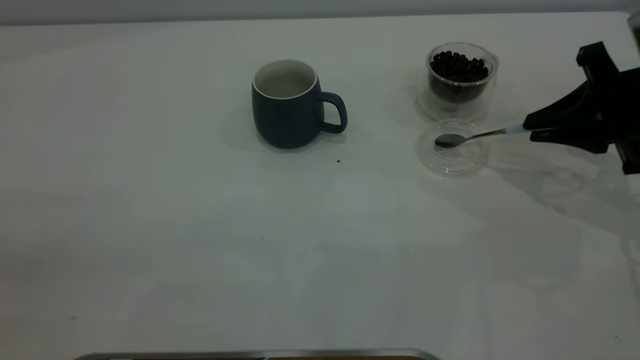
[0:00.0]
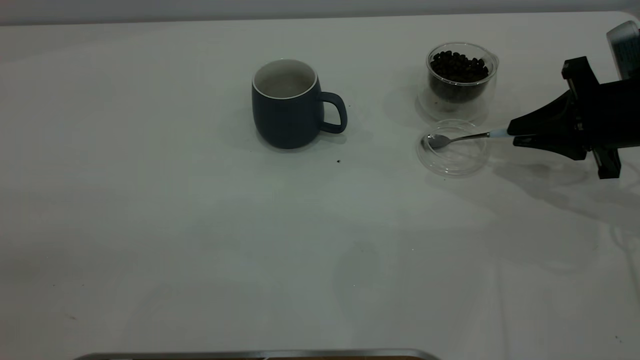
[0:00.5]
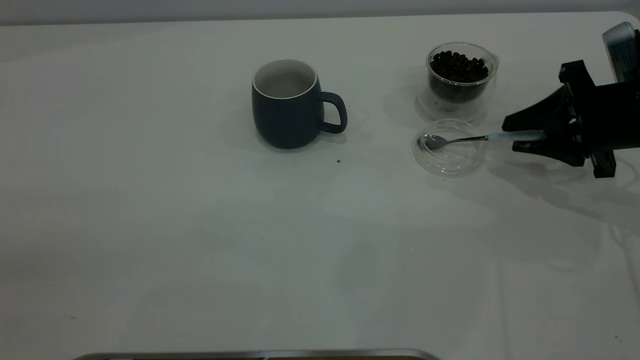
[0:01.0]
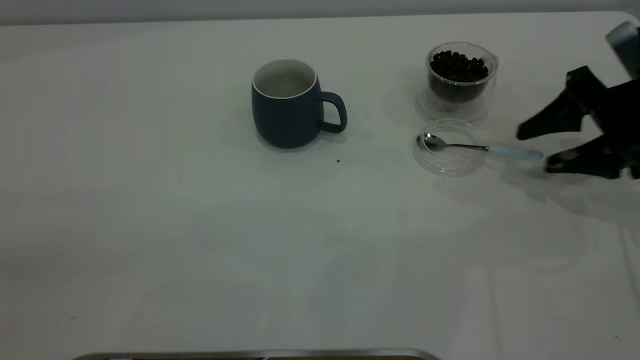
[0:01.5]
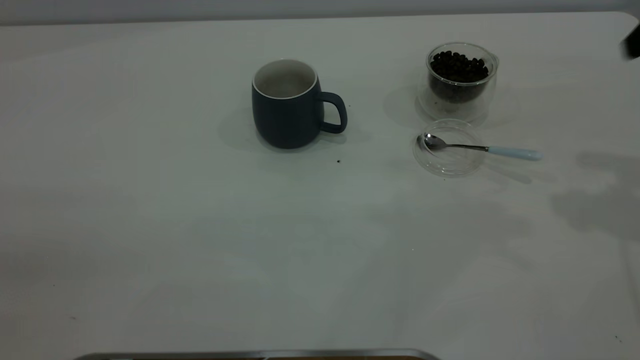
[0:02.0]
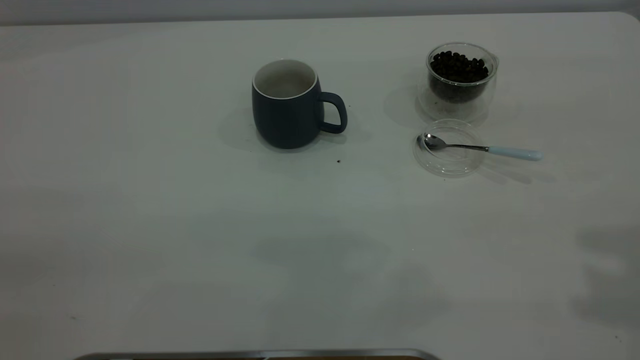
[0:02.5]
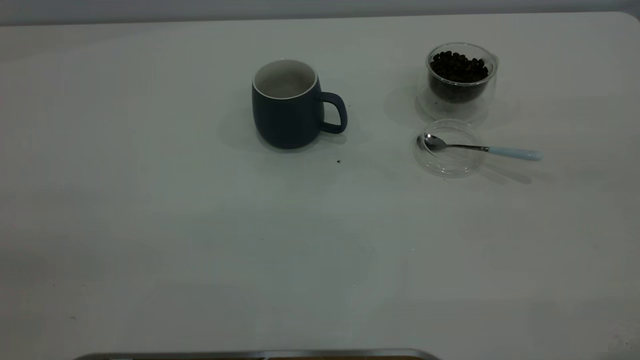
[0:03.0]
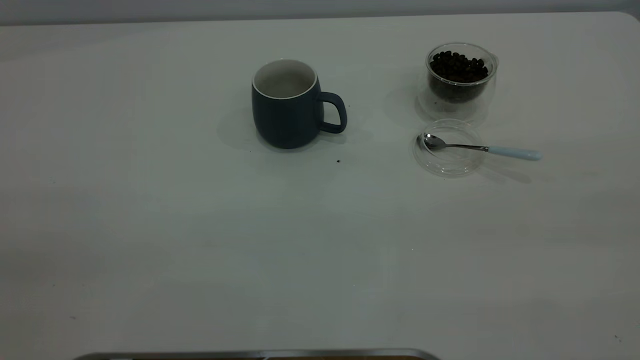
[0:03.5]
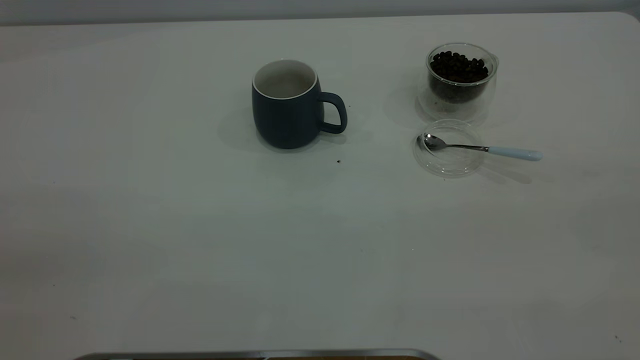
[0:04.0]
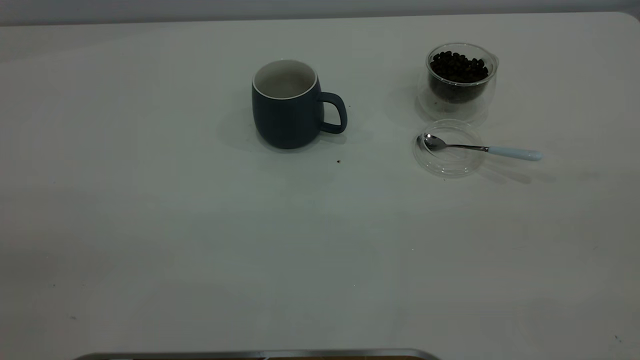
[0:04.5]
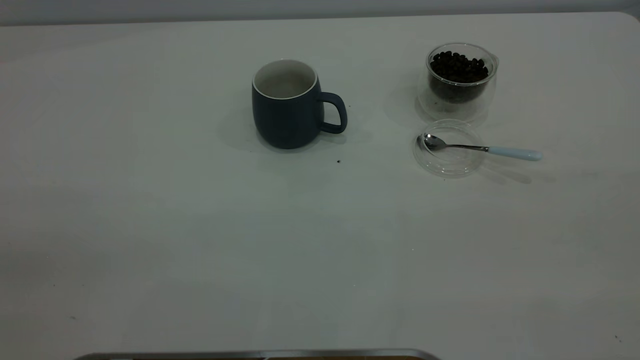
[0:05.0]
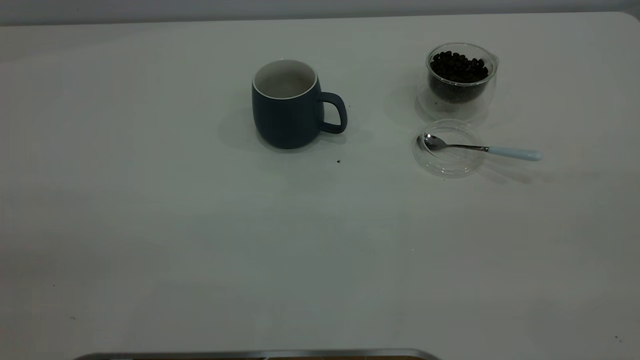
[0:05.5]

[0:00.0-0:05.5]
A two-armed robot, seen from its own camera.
Task of the whole recording: the left gripper place the grey cup in the center of the table, the right gripper take the blue spoon from the cup lid and scoop out the coffee beans from the coffee cup and put them into the grey cup, the right gripper put the spoon back into the cup lid.
Step, 0:00.0 to 0:01.5: Place the spoon back in its original place.
0:00.0 to 0:02.0: The right gripper travels upward by roughly 15 cm, and opens.
